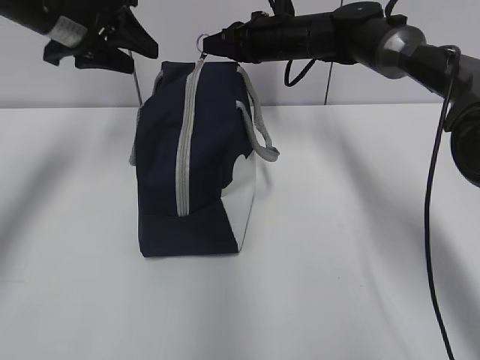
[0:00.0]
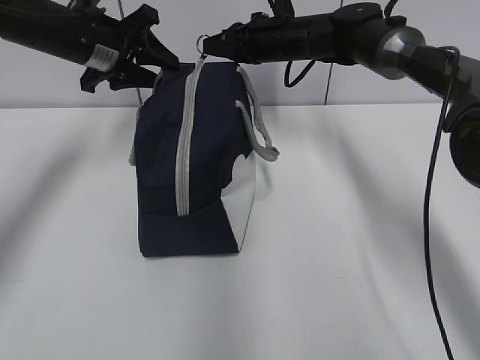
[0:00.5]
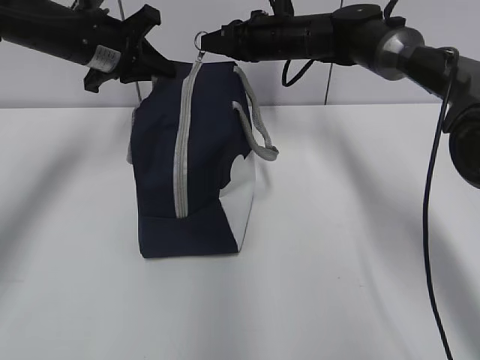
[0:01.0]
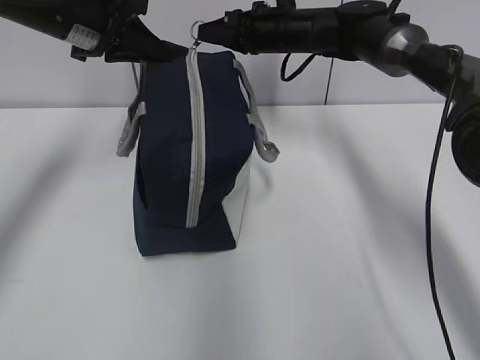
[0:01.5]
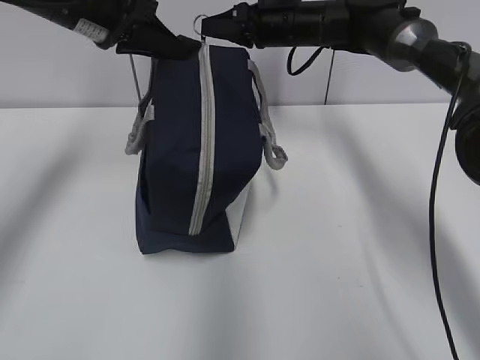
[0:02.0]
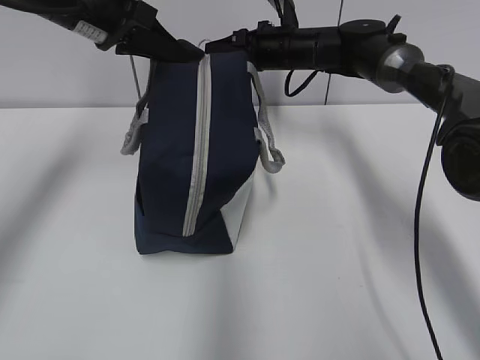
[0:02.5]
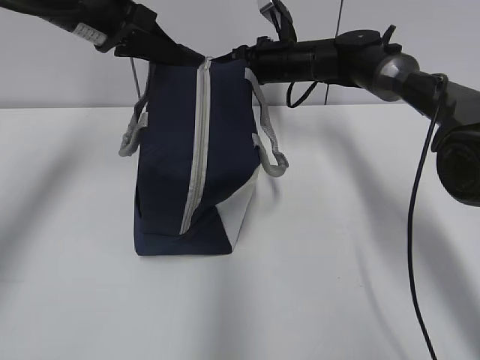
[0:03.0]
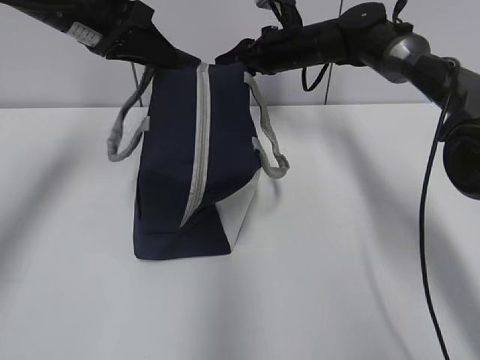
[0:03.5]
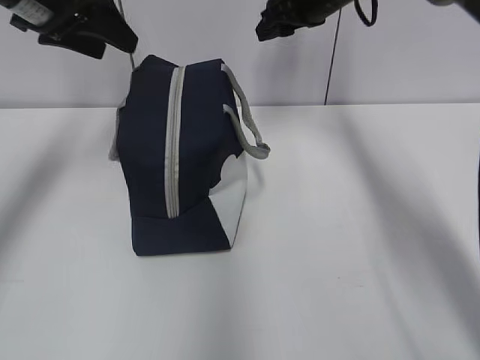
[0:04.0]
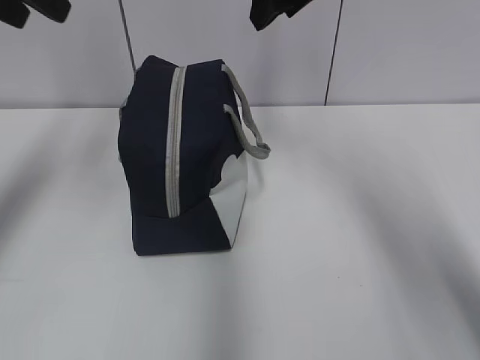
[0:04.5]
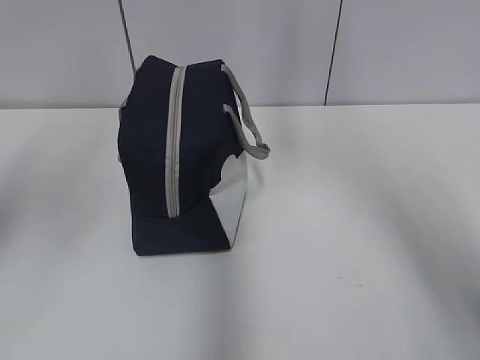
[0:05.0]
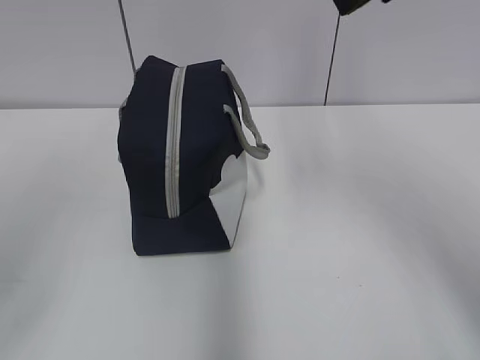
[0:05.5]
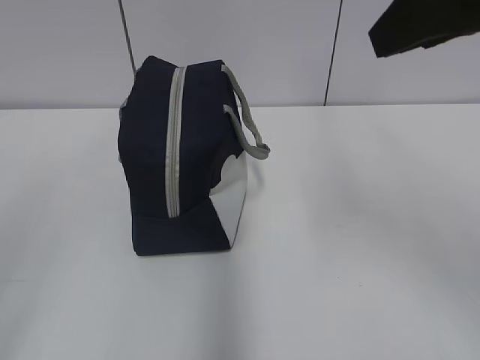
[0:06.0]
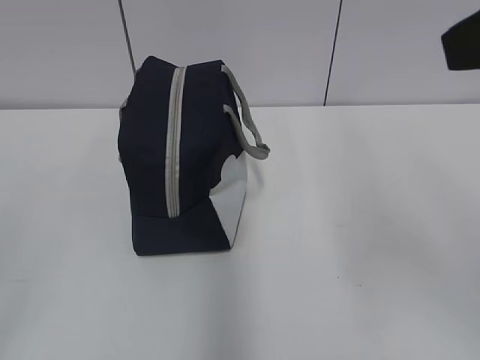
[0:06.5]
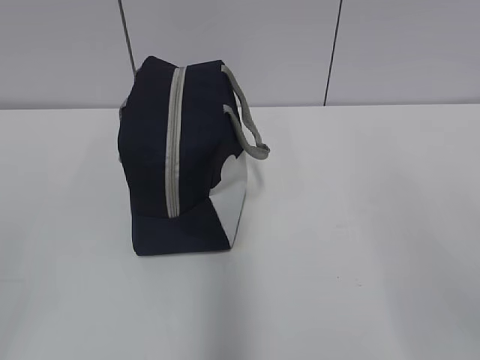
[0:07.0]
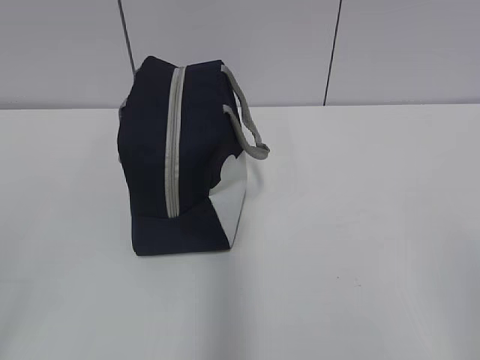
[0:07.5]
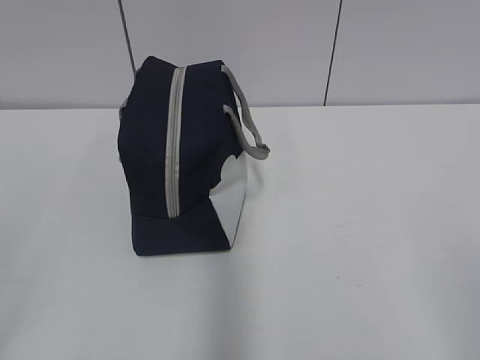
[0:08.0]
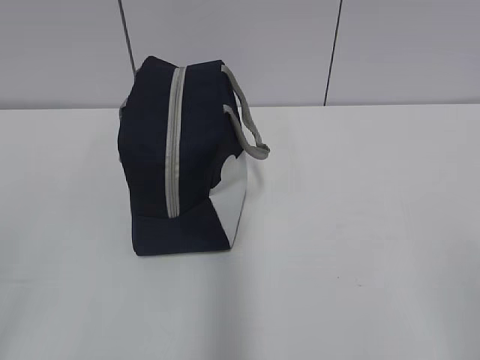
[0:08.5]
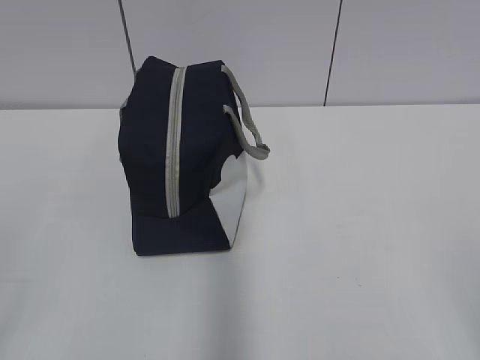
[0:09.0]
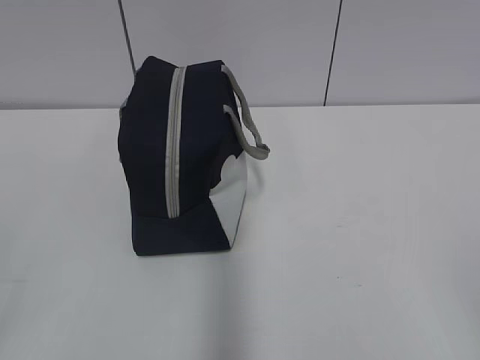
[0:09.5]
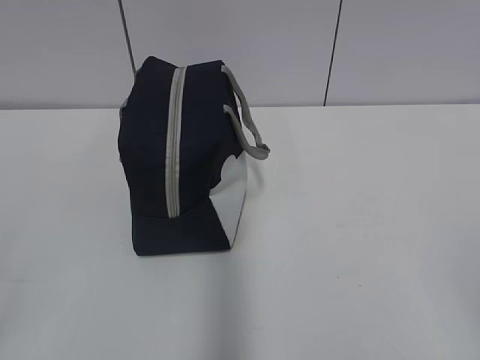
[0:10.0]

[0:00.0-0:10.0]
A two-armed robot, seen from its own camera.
Step, 0.0 to 3.0 s: Pull the zipper with your right hand.
0.0 to 2.0 s: The left gripper closes.
2.0 to 4.0 s: The left gripper shifts by approximately 5 cm, and opens, while the right gripper changes place by roughly 5 cm, and opens its fingers.
4.0 to 6.0 s: The grippers both shift backward by roughly 35 cm.
6.0 to 8.0 s: The right gripper goes approximately 30 cm backward, downward and to the right.

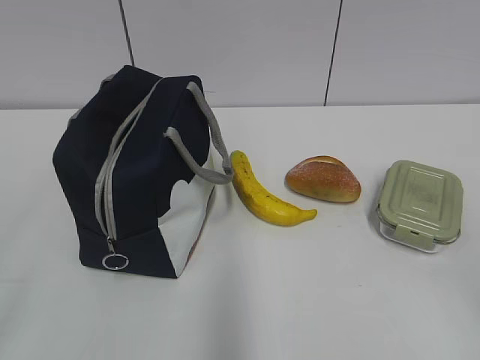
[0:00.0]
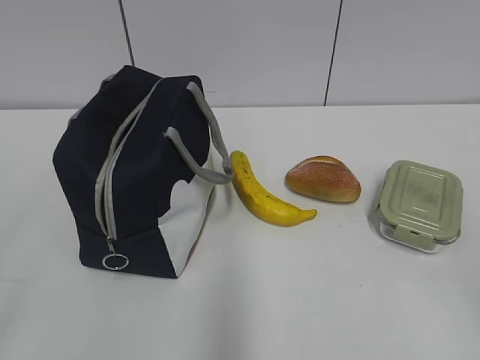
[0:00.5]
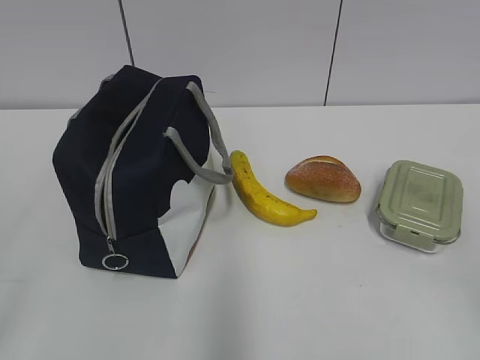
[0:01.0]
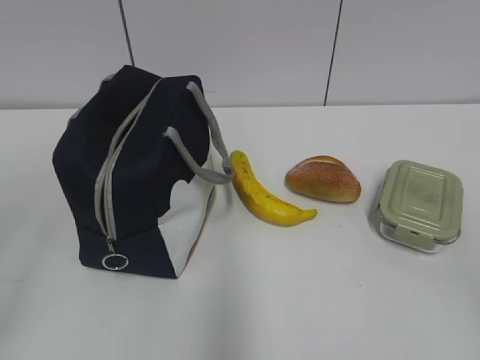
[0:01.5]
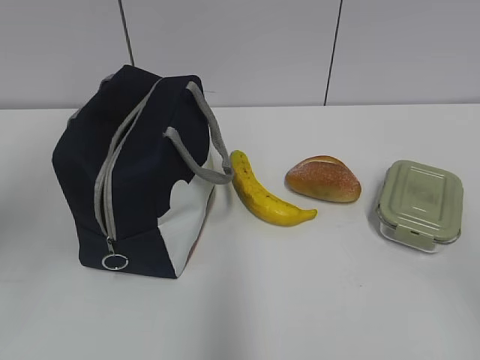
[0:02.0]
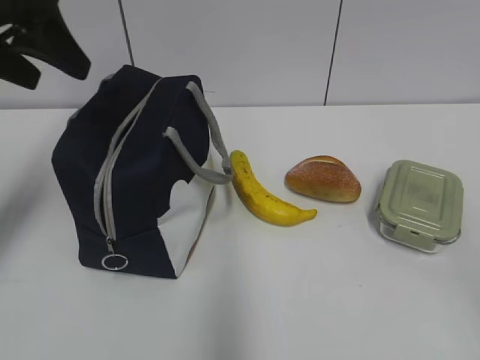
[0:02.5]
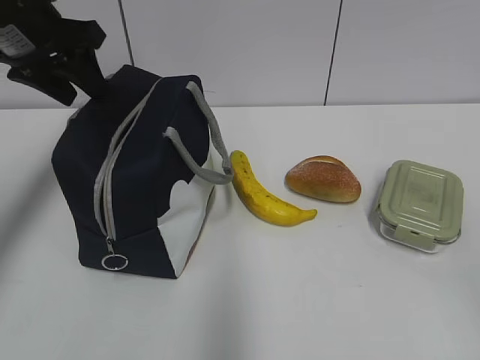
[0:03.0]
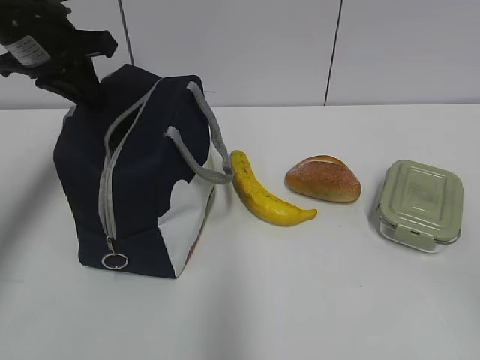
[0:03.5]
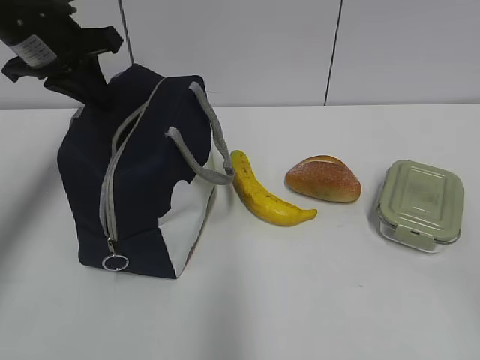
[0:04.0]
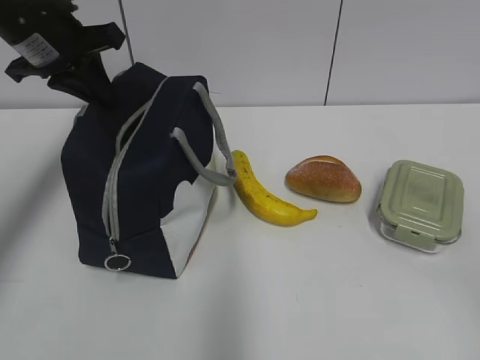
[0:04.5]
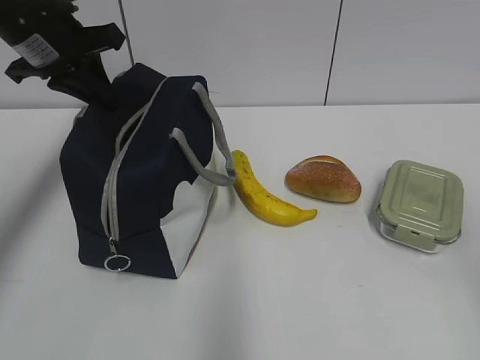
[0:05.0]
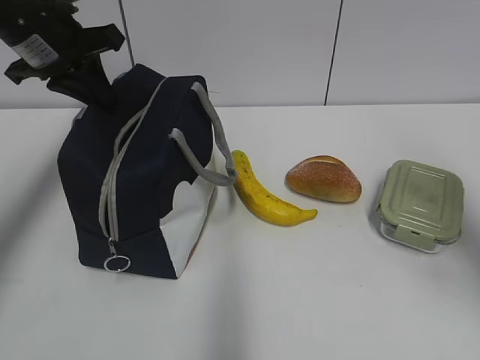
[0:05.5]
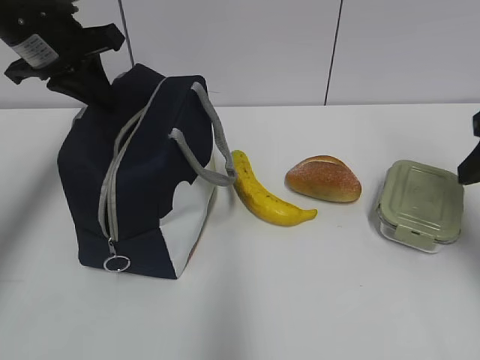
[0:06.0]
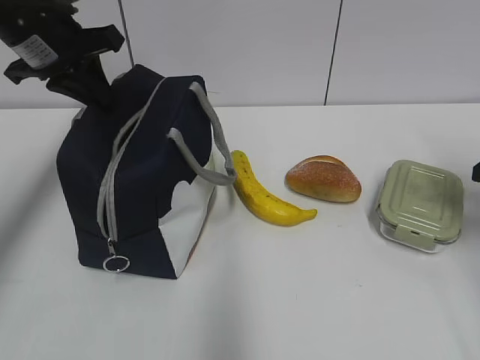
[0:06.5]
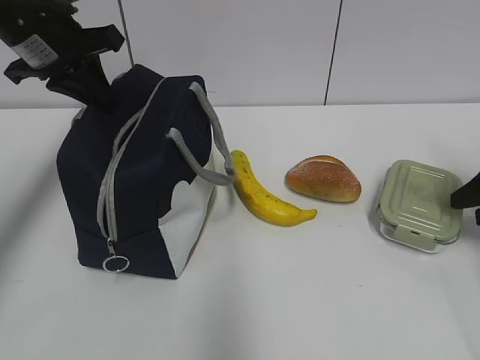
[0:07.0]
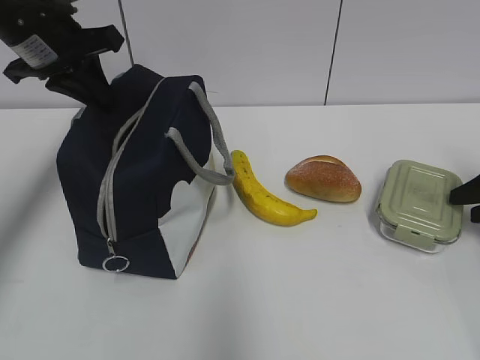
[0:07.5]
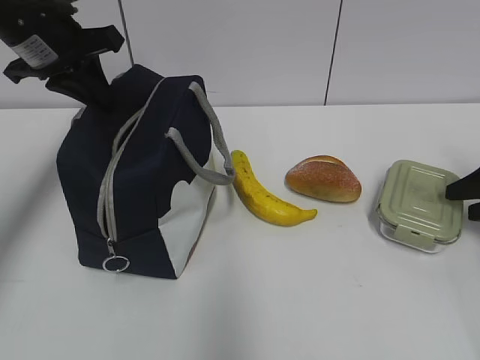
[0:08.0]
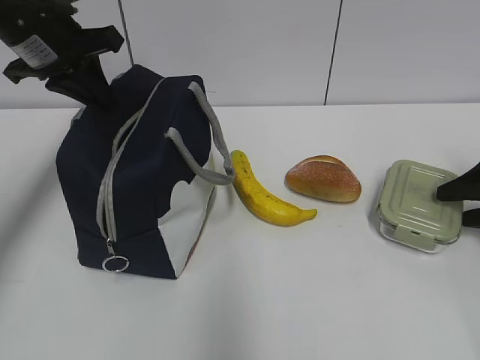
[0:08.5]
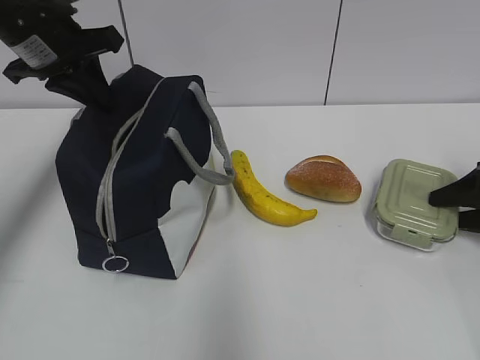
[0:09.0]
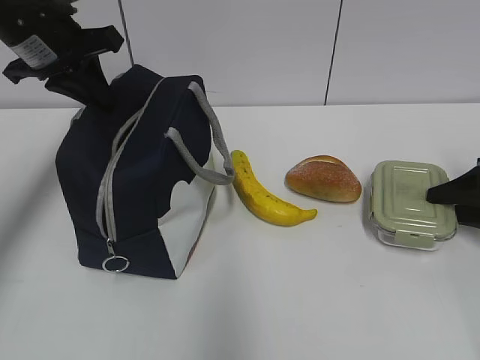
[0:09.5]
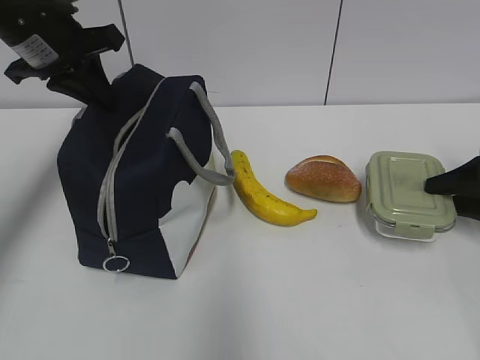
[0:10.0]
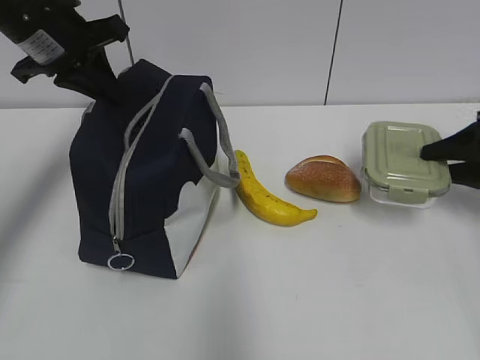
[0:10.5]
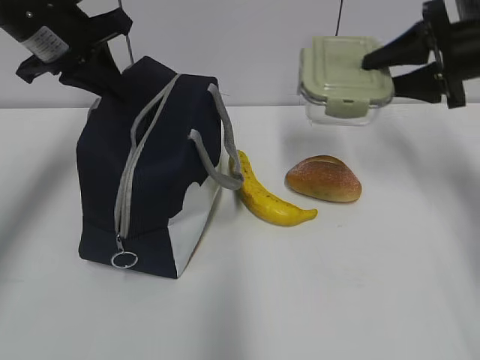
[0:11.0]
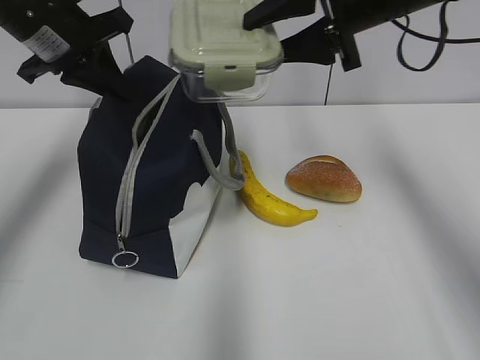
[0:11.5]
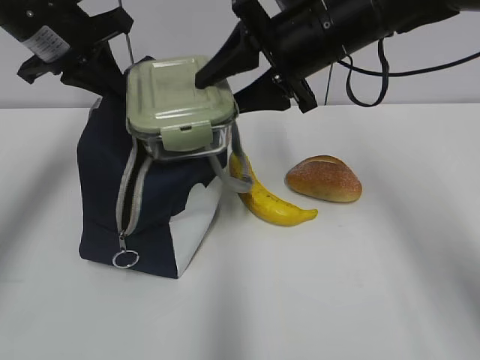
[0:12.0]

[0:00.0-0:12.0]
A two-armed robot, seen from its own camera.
Step, 0.0 to 9.0 s: Grab the lunch box with your right hand.
2.0 to 4.0 s: The left gripper is displaced forward and downward by approximately 25 cm, and closes up.
4.0 to 6.0 s: The right gripper is displaced forward by about 25 cm.
6.0 to 8.0 s: The right gripper travels downward, to the right and forward by about 20 cm.
8.0 to 10.0 s: There are only small adjustments of the grippers.
10.0 to 12.0 s: The right gripper moves to the left and upward, some 30 cm.

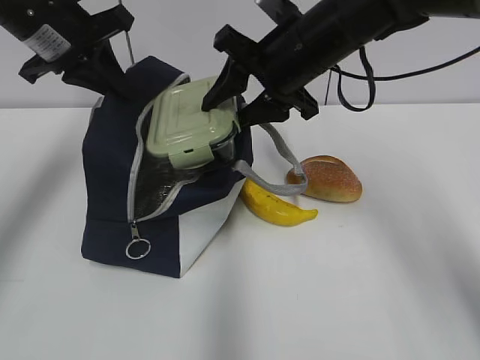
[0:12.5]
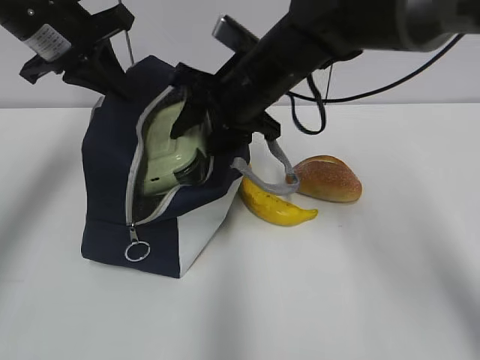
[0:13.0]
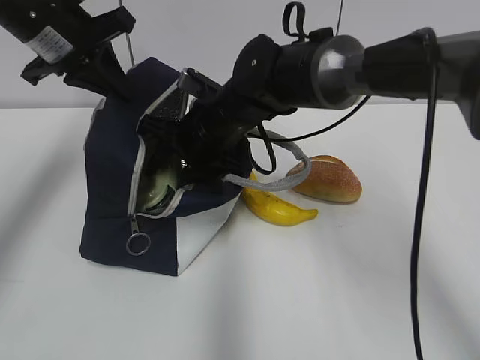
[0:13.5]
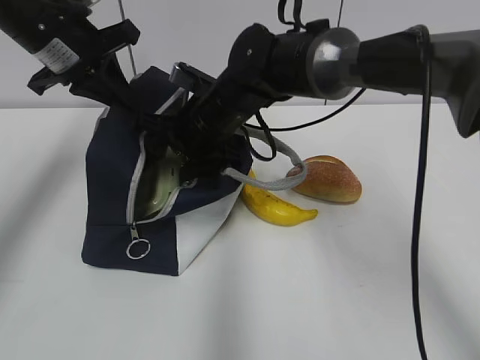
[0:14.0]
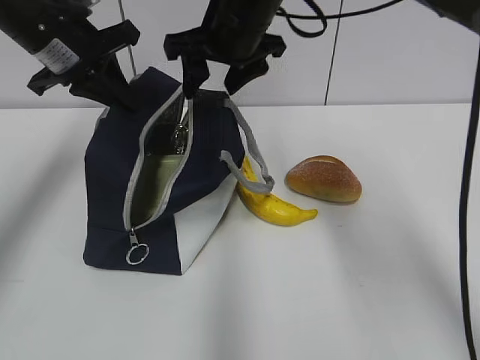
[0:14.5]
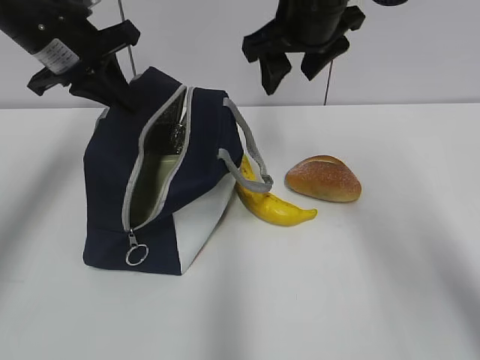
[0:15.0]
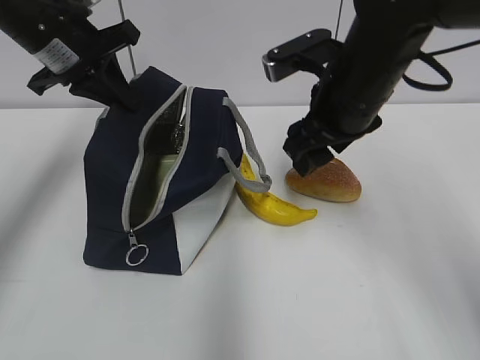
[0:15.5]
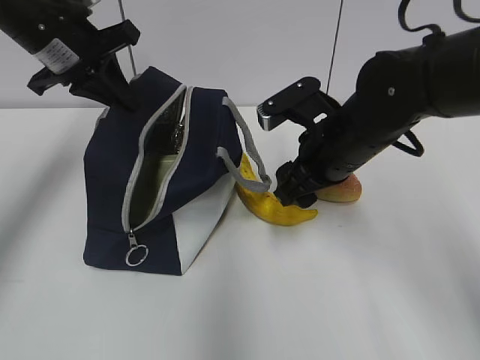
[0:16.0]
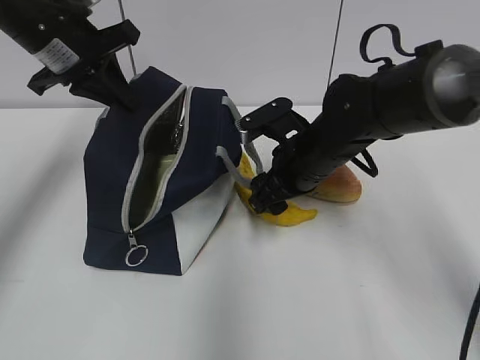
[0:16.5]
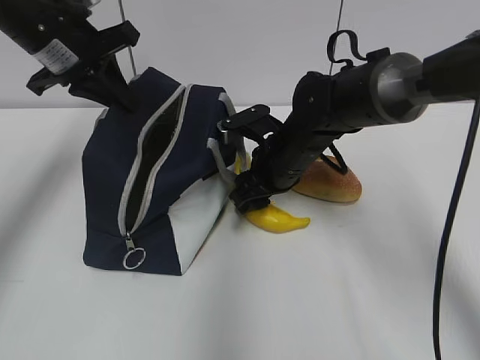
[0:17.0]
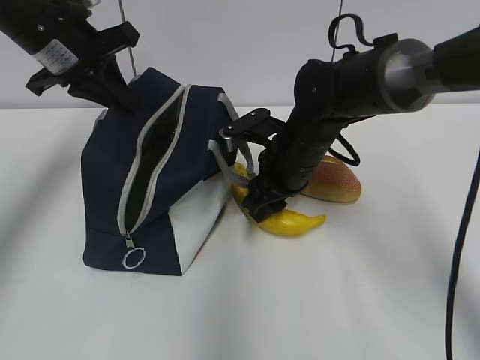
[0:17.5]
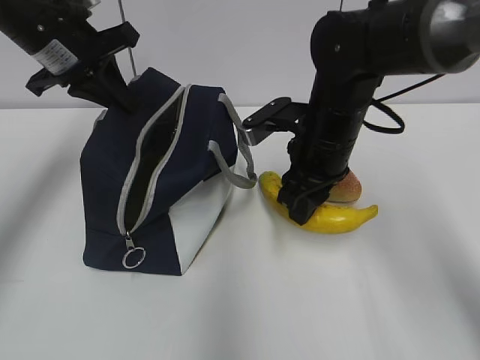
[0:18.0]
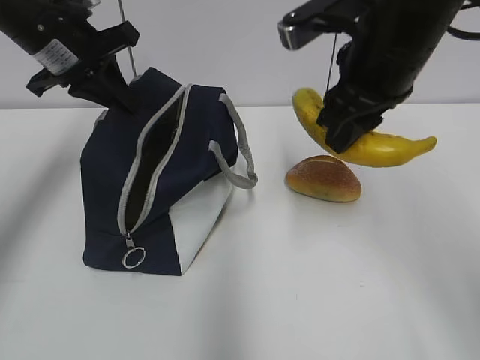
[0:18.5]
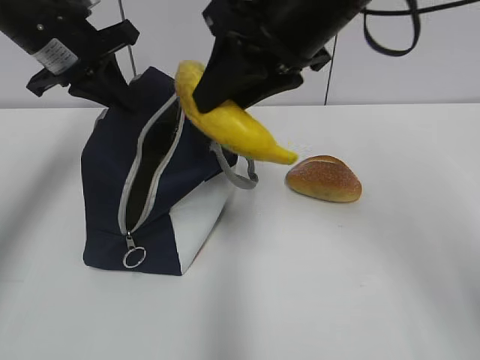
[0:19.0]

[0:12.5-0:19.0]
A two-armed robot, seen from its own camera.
Step, 12.5 to 14.0 s: Place it into the bag with your right hand.
Step, 14.5 to 17.0 s: Grab the banana with your right hand.
12.5 to 14.5 s: The right gripper goes about 5 cm to the left, and goes downward and returns, roughly 10 cm each way.
14.5 to 17.0 s: The right gripper heads downward, covering about 15 cm.
17.0 to 19.0 s: The right gripper shifts some 20 cm upward.
